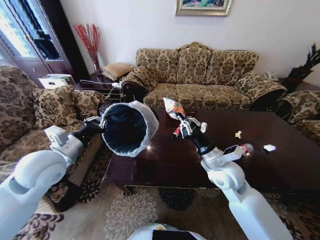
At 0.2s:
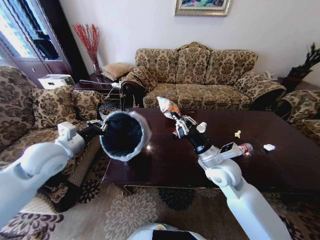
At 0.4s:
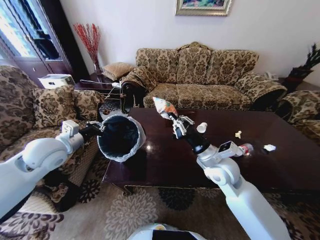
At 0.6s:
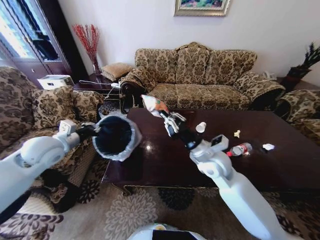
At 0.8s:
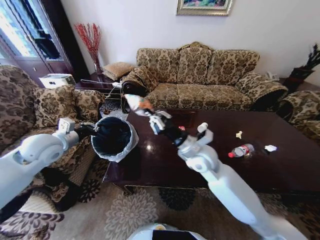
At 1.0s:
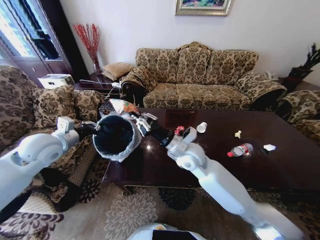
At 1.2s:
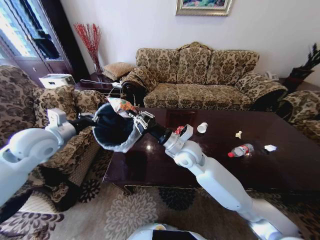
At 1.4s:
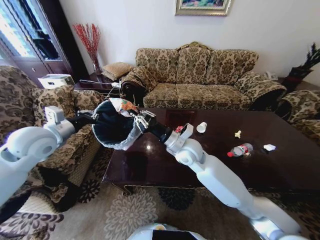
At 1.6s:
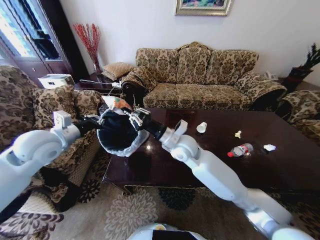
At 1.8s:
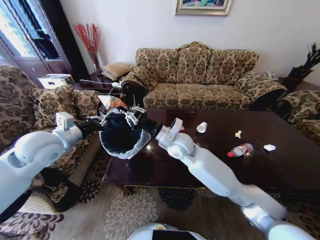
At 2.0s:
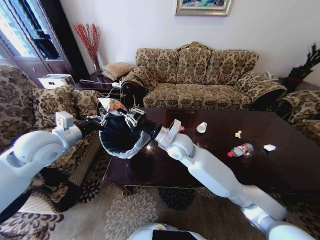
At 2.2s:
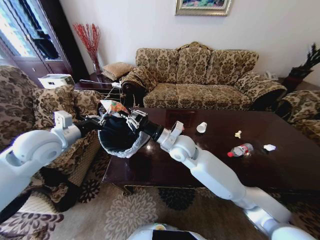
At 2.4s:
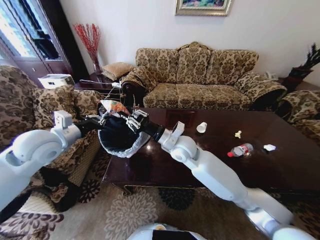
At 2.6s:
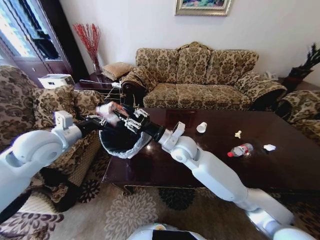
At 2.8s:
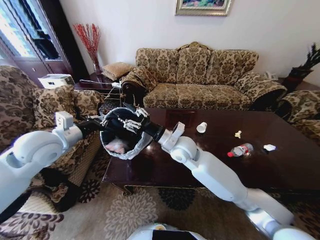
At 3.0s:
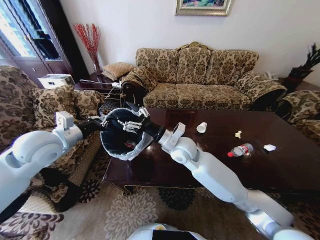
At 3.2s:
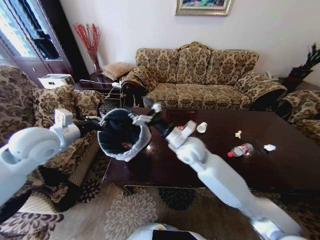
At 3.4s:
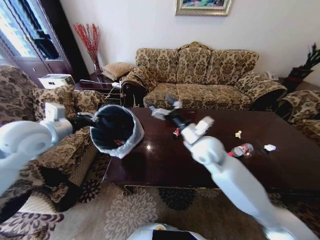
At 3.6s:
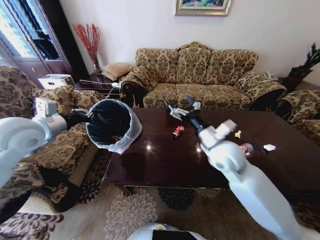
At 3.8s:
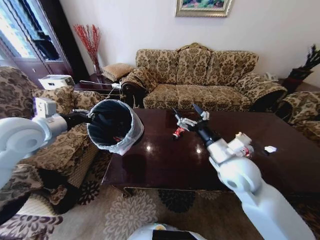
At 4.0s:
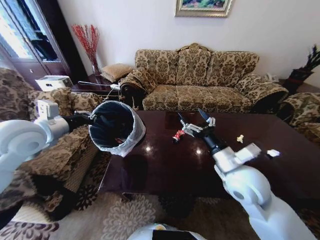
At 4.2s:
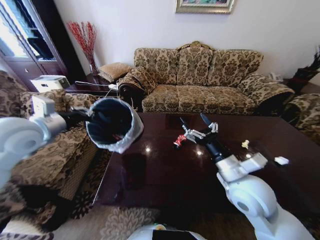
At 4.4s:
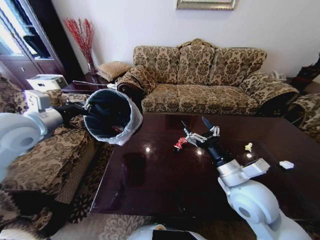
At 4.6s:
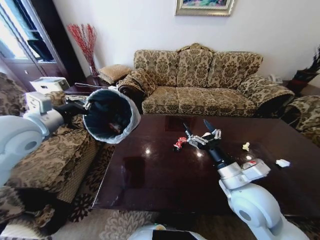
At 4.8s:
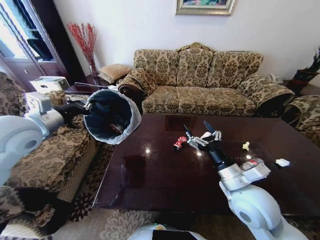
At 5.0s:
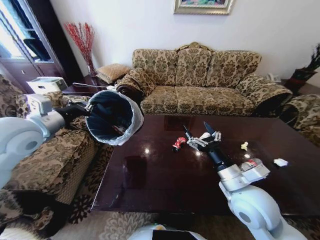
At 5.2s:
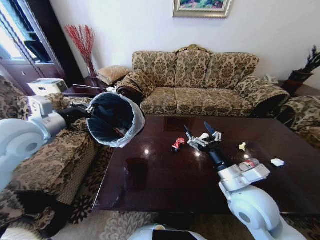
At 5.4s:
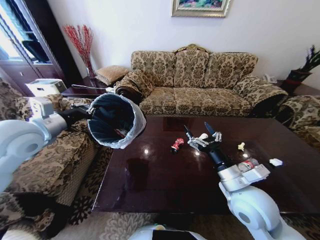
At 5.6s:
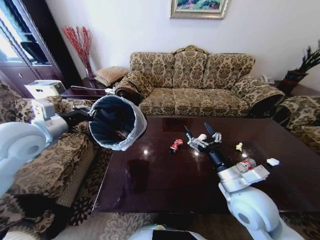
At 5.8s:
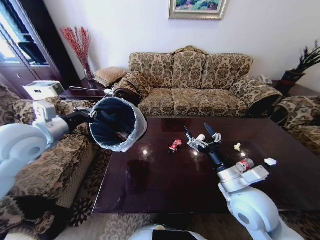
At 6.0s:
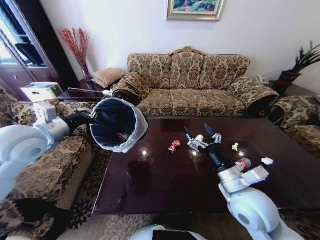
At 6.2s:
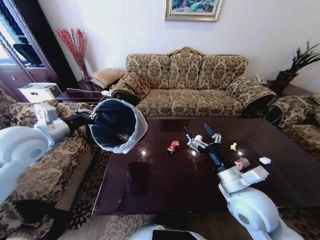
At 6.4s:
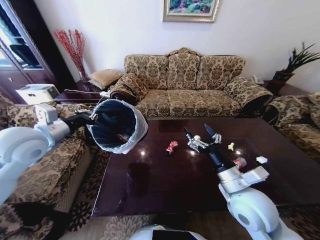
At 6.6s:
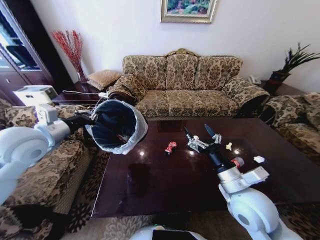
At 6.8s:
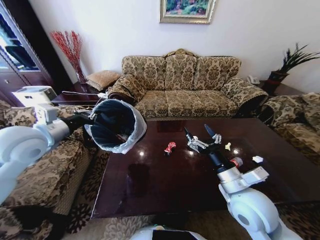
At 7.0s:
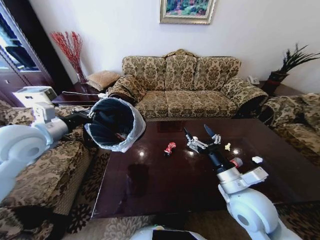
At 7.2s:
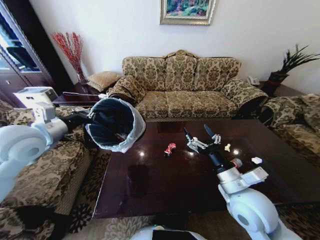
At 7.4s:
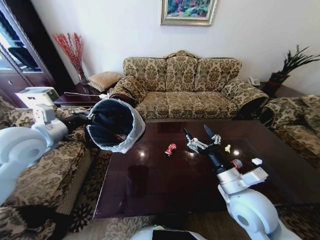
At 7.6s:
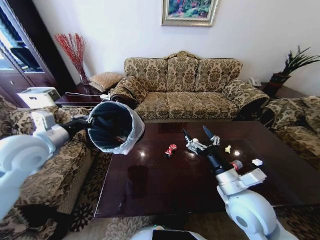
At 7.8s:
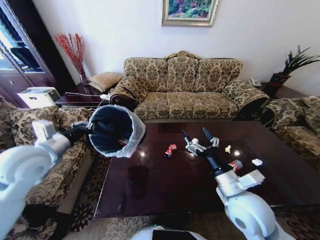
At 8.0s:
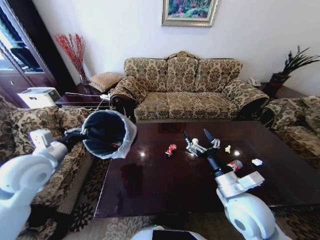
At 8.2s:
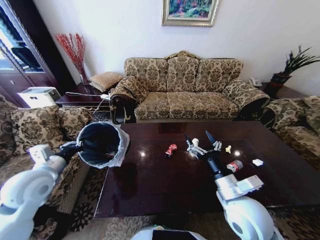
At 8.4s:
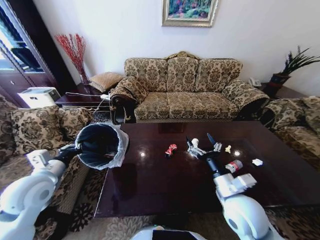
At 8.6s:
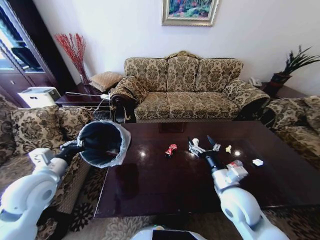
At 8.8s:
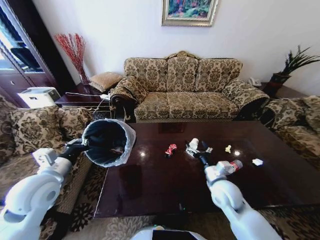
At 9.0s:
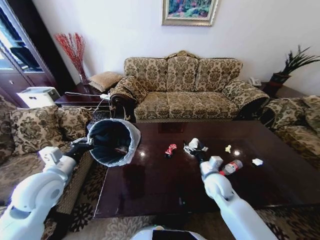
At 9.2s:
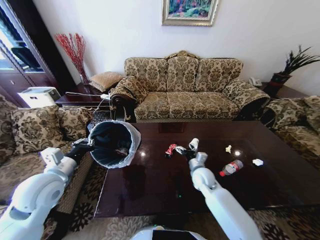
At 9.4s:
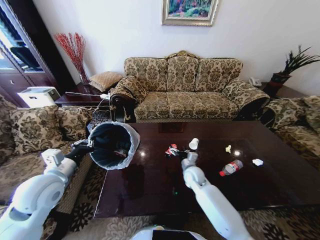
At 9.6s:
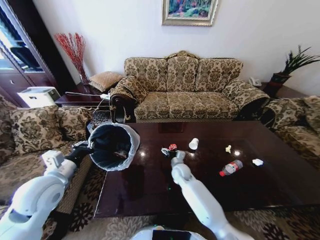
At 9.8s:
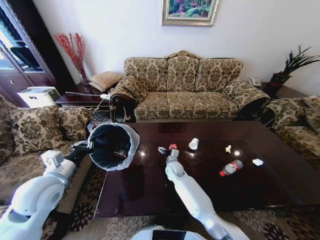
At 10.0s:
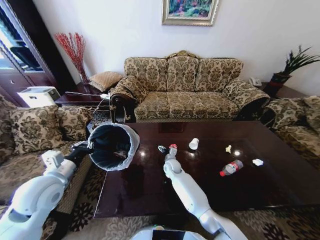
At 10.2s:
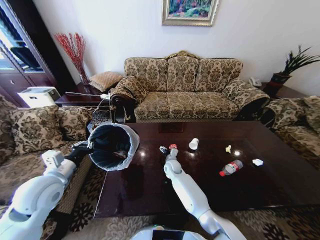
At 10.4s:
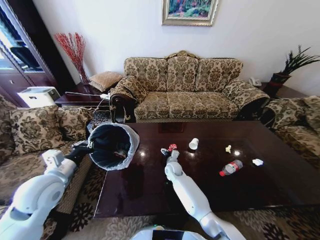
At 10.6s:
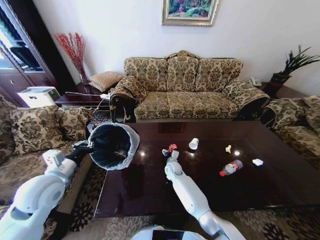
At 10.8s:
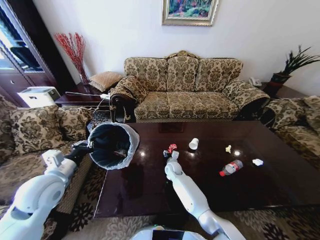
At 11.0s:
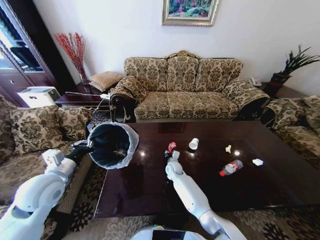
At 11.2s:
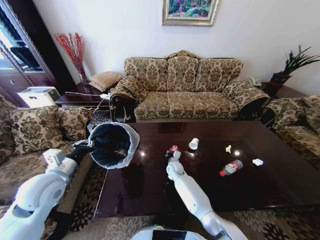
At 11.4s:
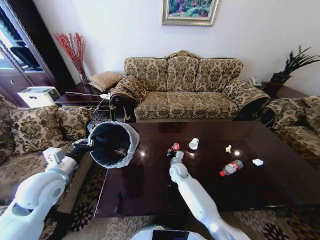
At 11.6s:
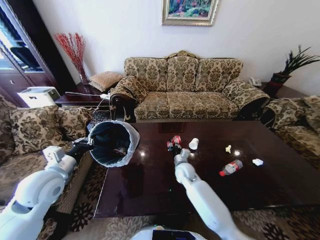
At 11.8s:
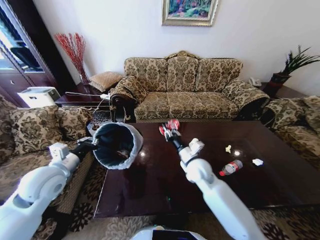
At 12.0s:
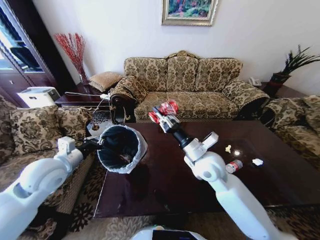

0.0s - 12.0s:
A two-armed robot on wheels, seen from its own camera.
Task of the whole recording: Move to the front of the table and place the trash on the table into the trash bin.
0.0s - 1.6s: The right gripper is displaced to the left and forward by about 15 cm. The left gripper travels forward by about 5 cm.
1.6s - 3.0s: The right gripper opens up.
3.0s - 4.4s: The right gripper shifts about 20 cm backward and to the right. Meanwhile the left gripper is displaced upward by approximately 5 cm.
7.6s - 9.0s: The right gripper shifts some 15 cm downward and forward. The left gripper goes about 10 cm downward and backward.
9.0s - 10.4s: The right gripper is displaced to the left, forward and downward by some 25 cm.
10.4s - 12.0s: The right gripper travels upward and backward by about 30 cm, and closes.

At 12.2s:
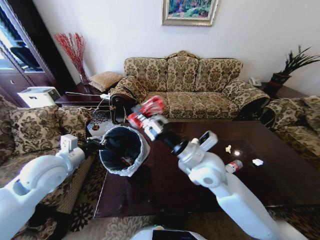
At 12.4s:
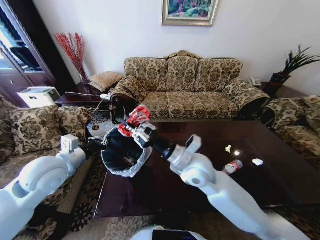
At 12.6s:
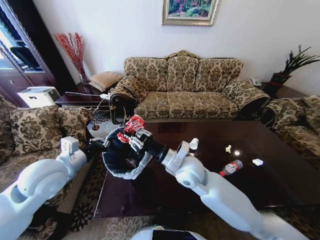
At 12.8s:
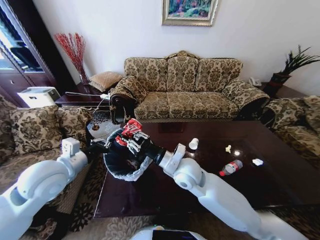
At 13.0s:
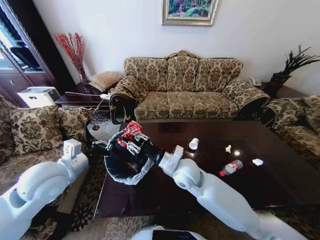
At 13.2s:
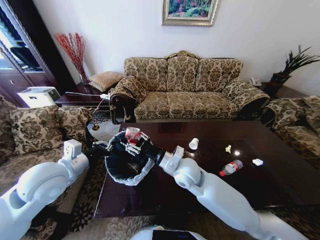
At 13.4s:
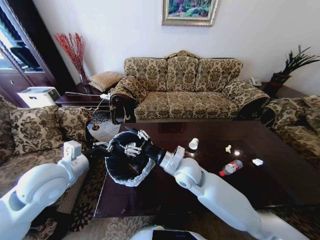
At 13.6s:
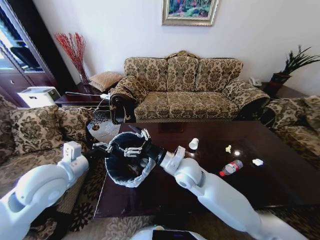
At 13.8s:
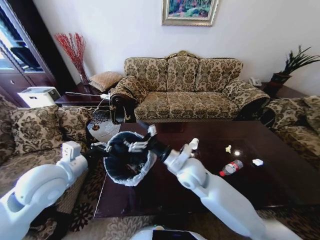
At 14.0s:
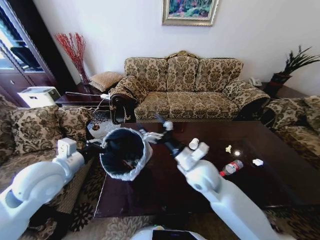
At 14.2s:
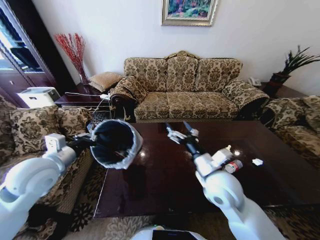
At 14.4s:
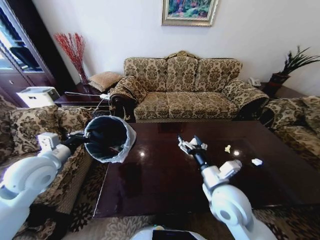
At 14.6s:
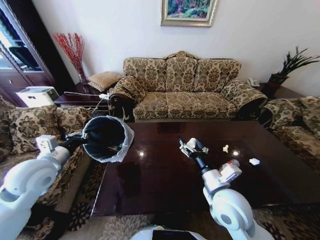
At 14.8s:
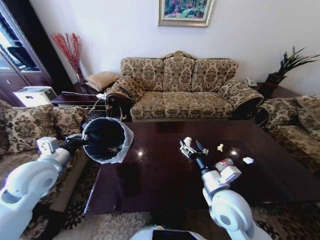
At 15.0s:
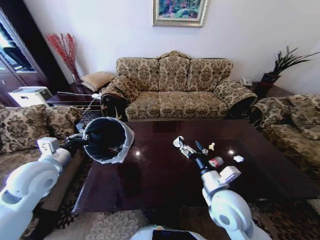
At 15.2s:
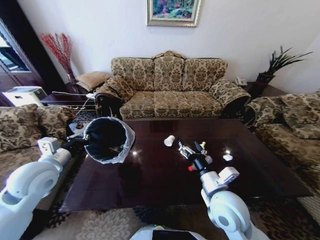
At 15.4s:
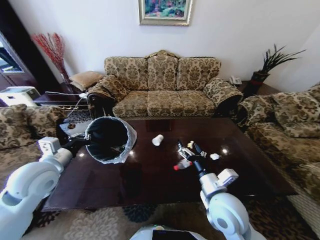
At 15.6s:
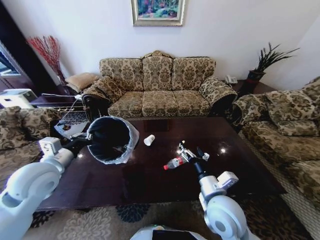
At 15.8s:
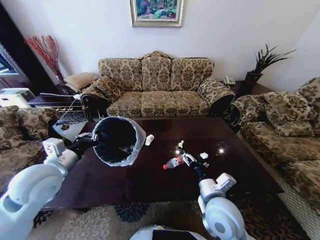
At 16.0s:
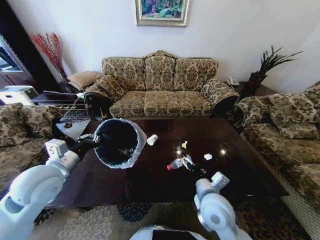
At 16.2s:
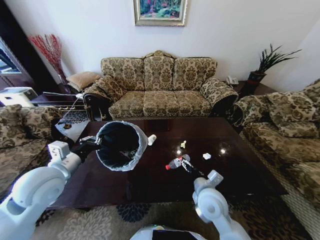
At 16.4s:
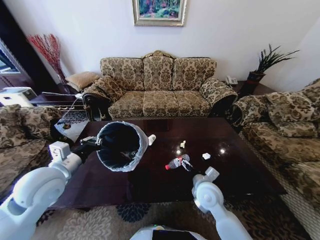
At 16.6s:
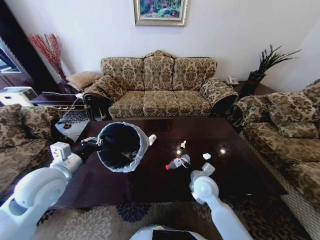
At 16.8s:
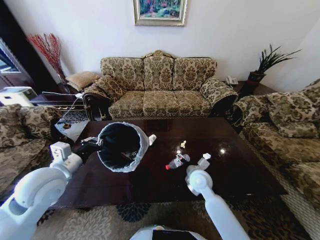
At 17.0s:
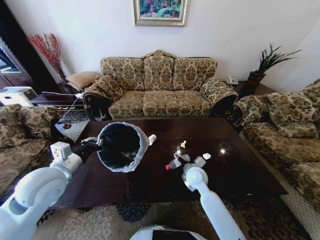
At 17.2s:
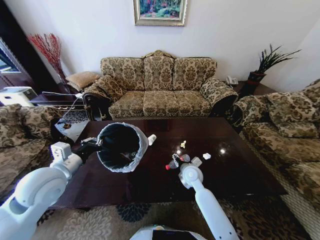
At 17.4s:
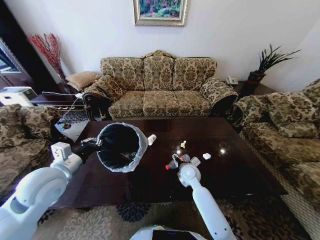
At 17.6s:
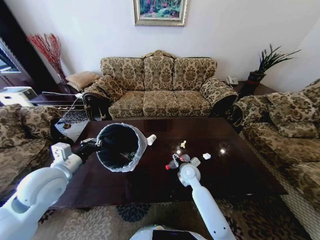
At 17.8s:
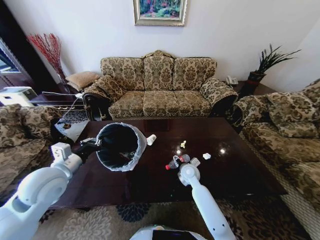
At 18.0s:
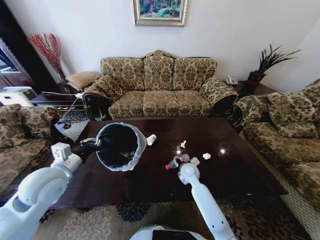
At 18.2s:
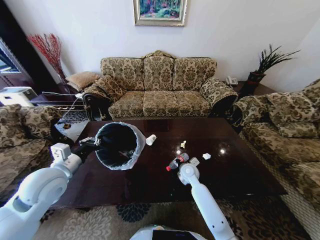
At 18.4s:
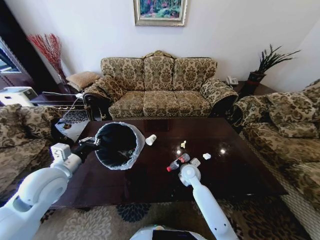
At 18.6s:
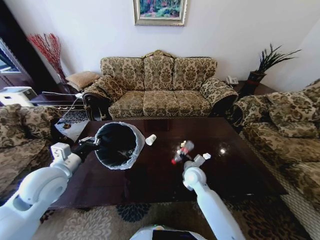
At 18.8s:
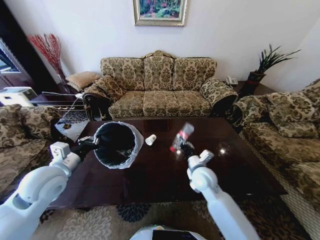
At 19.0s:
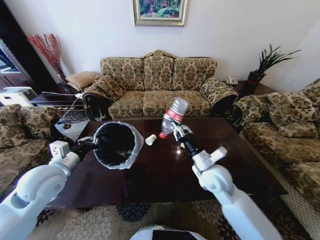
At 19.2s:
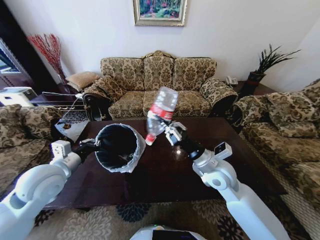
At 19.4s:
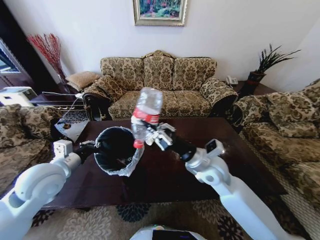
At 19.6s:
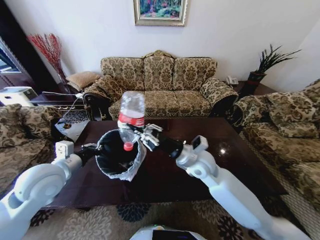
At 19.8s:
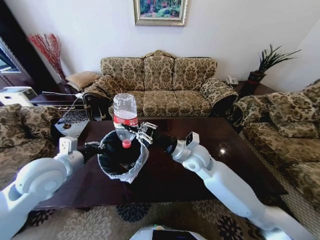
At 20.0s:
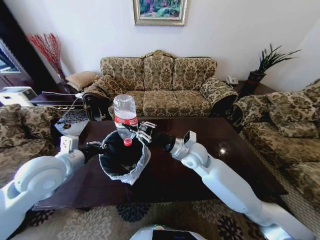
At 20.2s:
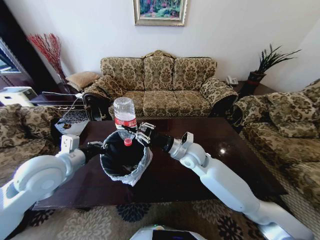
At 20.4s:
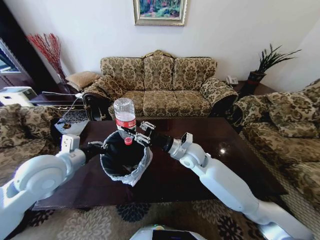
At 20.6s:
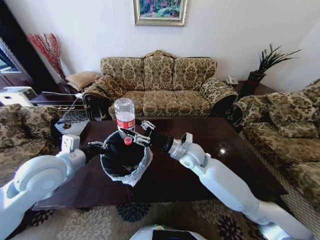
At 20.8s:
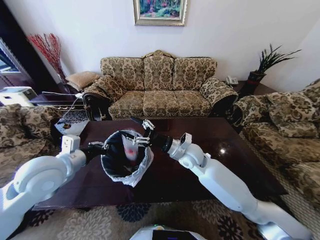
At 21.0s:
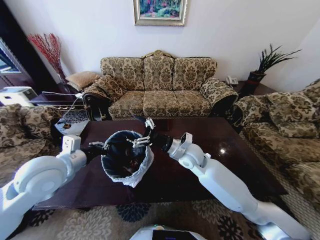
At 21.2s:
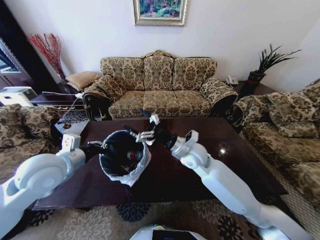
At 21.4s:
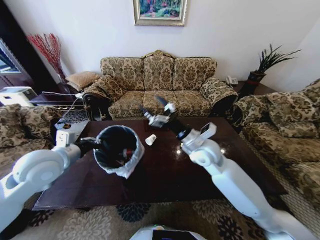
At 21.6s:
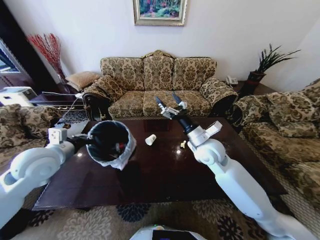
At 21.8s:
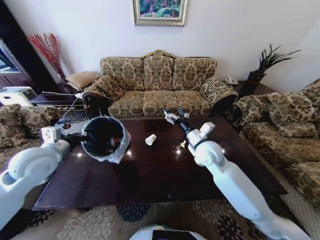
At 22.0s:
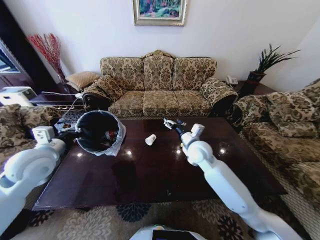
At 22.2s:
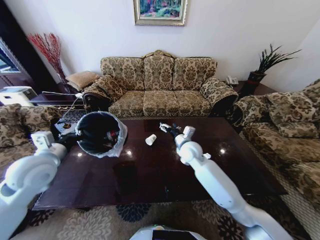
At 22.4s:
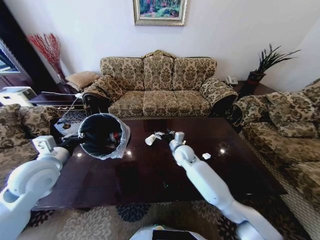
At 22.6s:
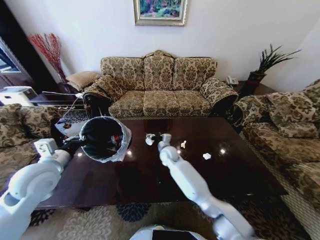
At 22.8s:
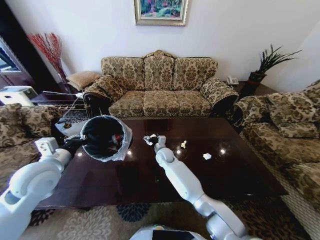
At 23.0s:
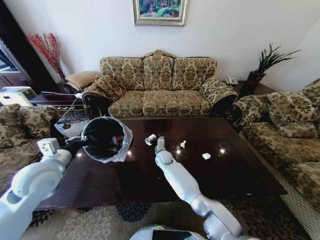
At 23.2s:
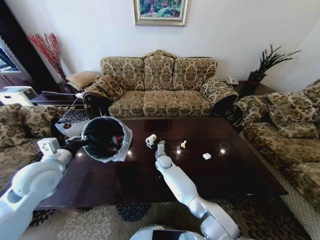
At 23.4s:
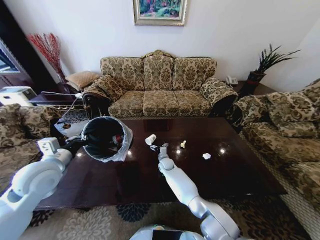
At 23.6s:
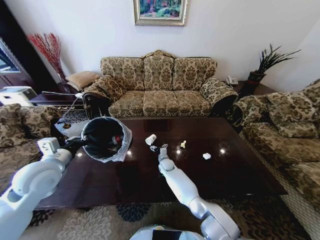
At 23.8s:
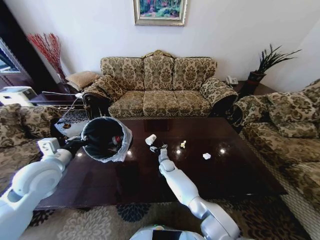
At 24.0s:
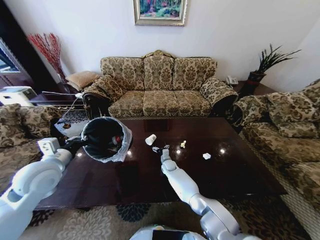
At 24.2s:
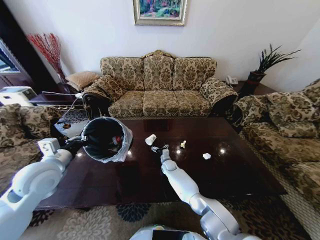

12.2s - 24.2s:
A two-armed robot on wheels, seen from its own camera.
Task of the whole recording: Move to the front of the table and place the trash on the table into the trash bin.
12.2s - 13.8s: The right gripper moves downward, some 5 cm, and opens up.
13.8s - 15.2s: The right gripper goes about 15 cm backward and to the right, while the left gripper shifts approximately 5 cm to the left.
15.2s - 16.6s: The right gripper shifts about 15 cm downward and forward.
16.6s - 18.2s: The right gripper travels forward and downward by about 10 cm, and closes.
18.2s - 19.8s: The right gripper heads upward, covering some 20 cm, and closes.
19.8s - 21.2s: The right gripper opens.
21.2s - 22.6s: The left gripper changes place by about 5 cm. The right gripper goes roughly 20 cm downward, forward and to the left.
22.6s - 24.2s: The right gripper travels downward by roughly 15 cm.
